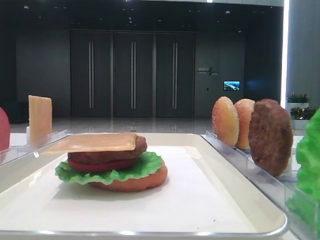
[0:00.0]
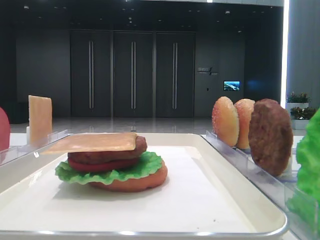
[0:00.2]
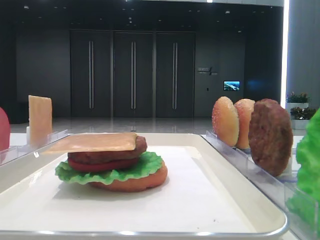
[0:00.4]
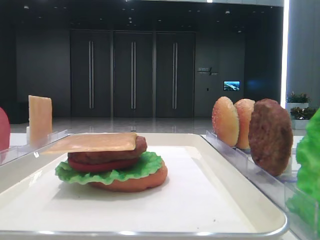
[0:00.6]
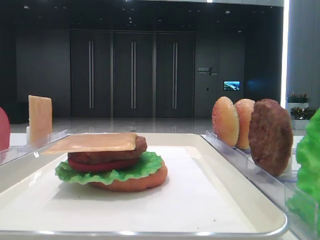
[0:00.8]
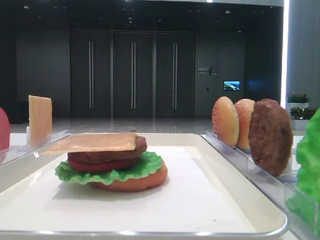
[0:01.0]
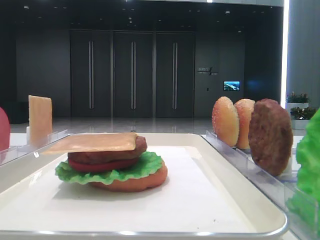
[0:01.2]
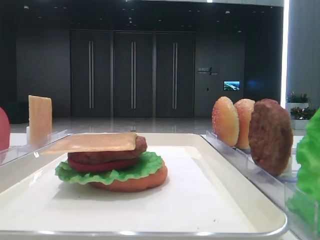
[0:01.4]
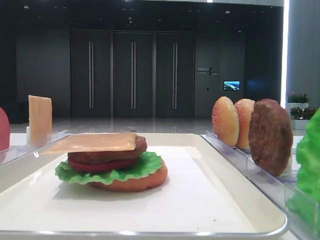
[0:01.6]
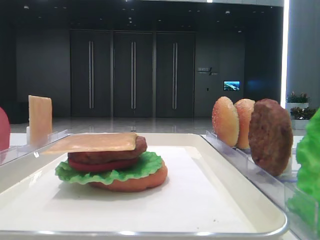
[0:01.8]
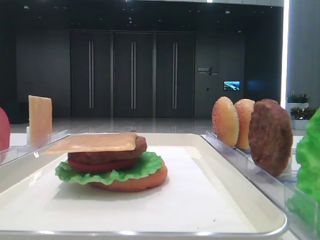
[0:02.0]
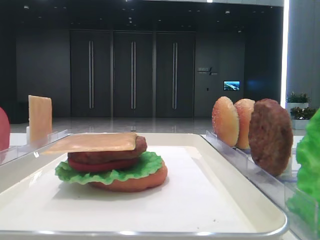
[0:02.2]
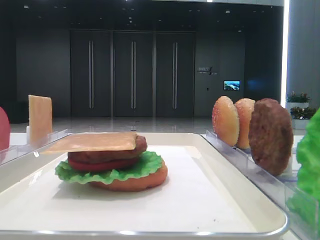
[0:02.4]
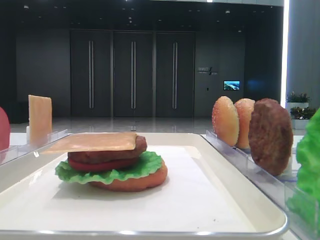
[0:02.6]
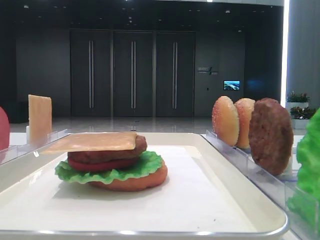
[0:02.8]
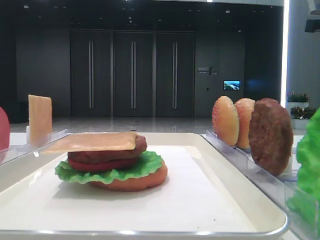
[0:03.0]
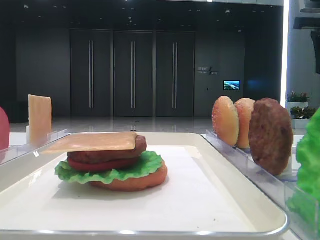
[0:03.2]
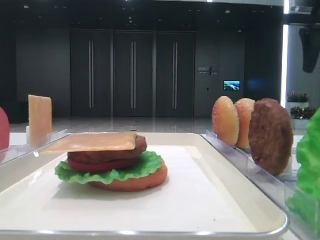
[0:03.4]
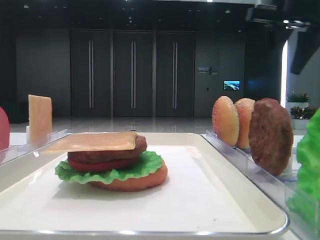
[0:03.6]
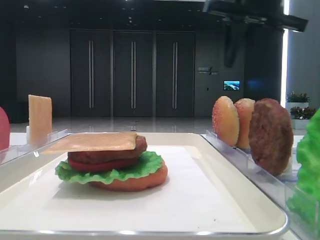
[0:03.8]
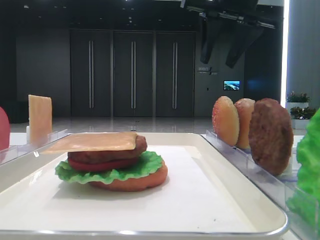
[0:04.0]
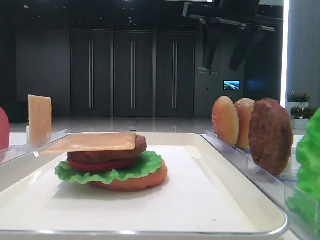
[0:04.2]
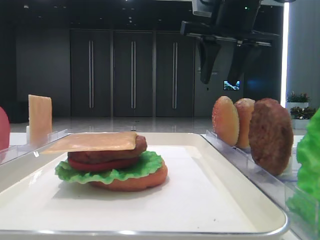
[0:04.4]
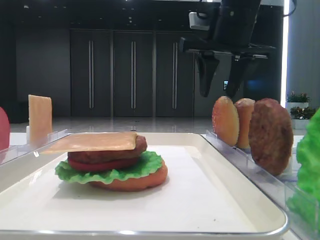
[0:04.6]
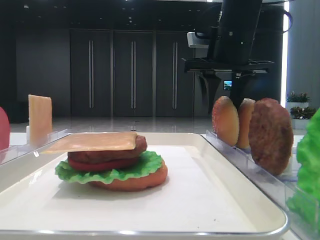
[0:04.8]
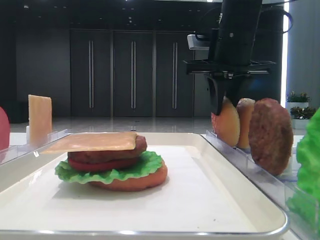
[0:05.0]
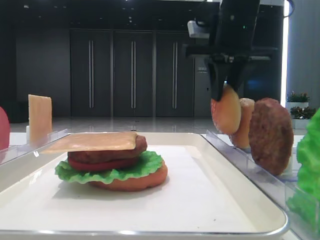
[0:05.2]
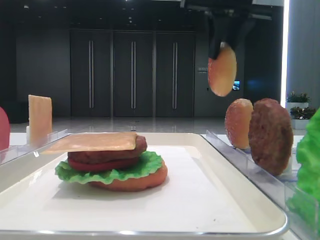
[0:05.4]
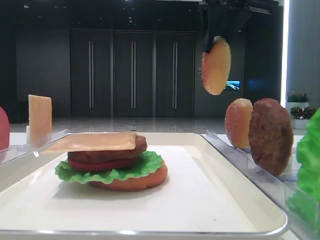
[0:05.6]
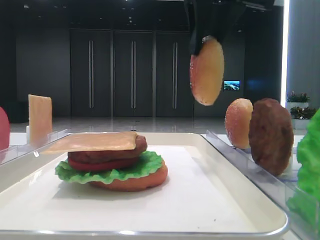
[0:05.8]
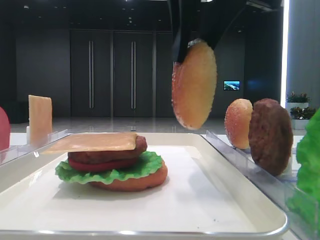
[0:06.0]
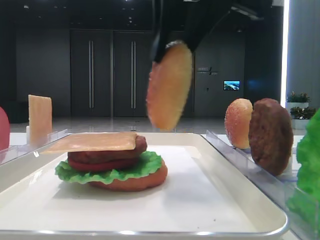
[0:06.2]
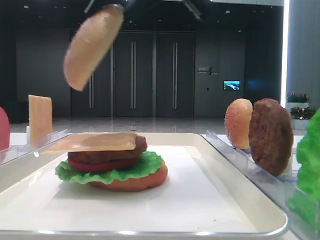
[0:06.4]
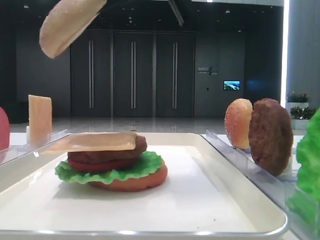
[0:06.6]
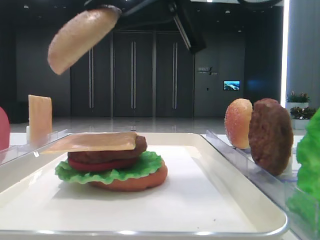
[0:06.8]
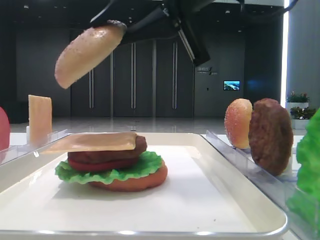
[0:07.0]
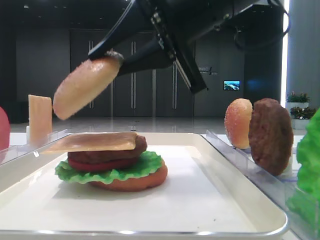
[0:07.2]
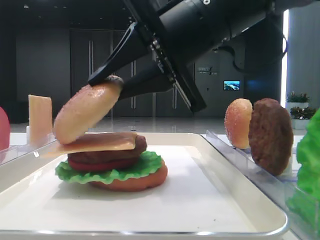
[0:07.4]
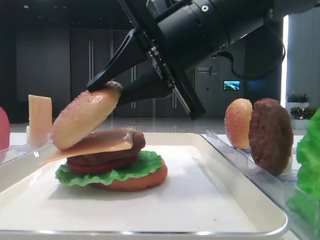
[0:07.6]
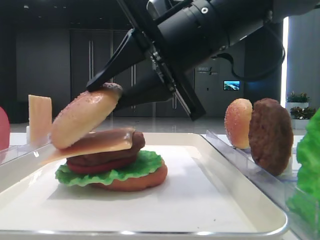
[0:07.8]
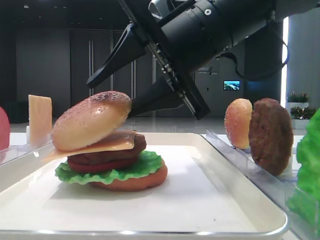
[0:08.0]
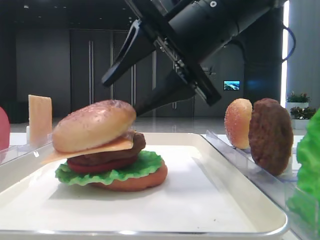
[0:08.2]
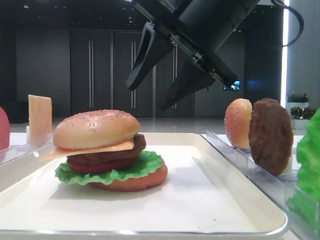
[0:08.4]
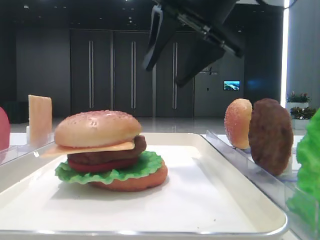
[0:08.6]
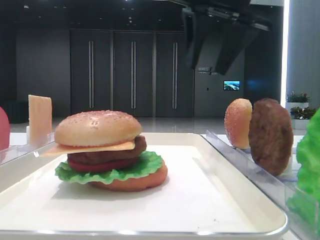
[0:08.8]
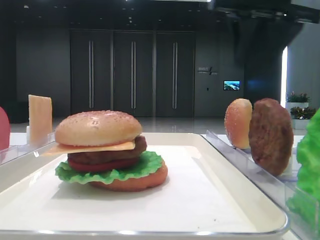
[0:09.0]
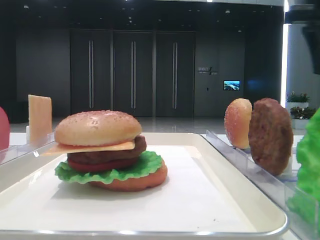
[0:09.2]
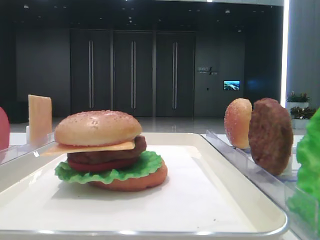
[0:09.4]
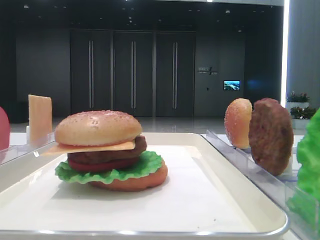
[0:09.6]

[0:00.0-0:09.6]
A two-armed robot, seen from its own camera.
Step, 0:00.0 to 0:05.0: Pick up the top bread slice with the right hand.
Step, 0:05.2 to 0:08.0: Place the top bread slice on the cheese with the right hand.
0:01.6 to 0:03.2: The left gripper closes up; the right gripper goes some 40 cm forward.
0:03.2 to 0:04.8: The right gripper travels to the left by some 20 cm.
0:04.8 to 0:06.4: The right gripper travels backward, to the left and upward by approximately 20 cm, and closes up.
0:06.4 to 0:08.0: The right gripper goes about 10 cm downward, and opens its fingers.
0:08.0 to 0:09.6: The right gripper is displaced to the right and upward by approximately 30 cm.

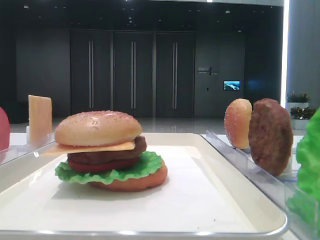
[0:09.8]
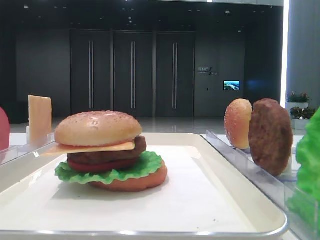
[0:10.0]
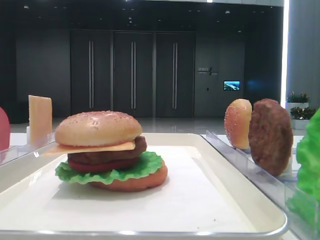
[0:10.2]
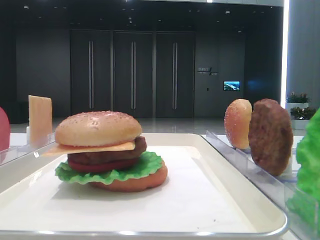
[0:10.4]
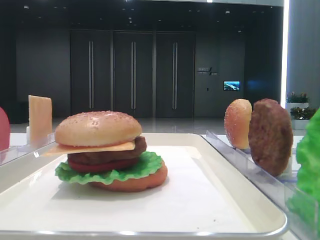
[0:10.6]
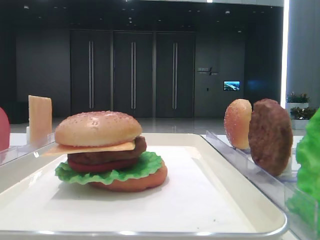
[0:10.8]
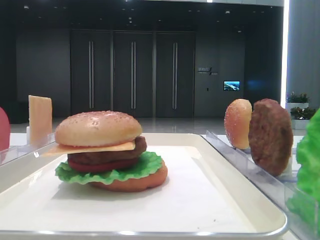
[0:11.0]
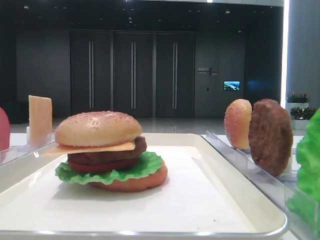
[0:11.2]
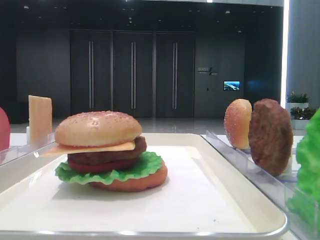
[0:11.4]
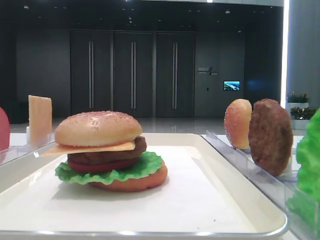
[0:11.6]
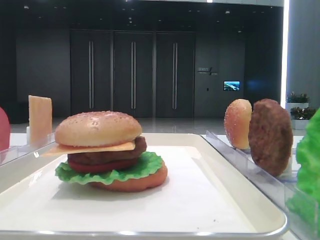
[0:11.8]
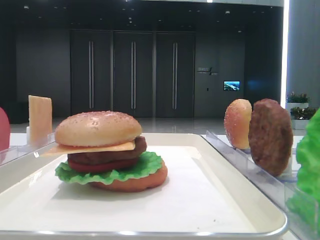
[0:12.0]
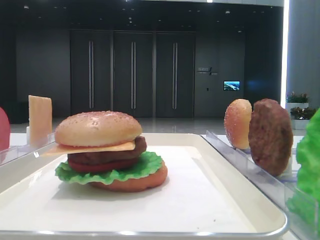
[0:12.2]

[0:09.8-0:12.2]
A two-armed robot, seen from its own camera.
0:11.0 to 0:12.2: Both grippers stay about where they are.

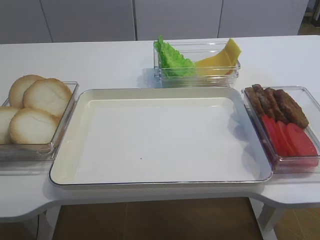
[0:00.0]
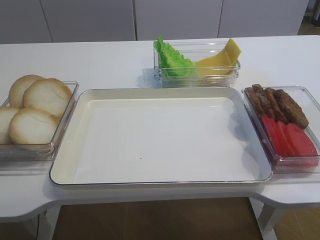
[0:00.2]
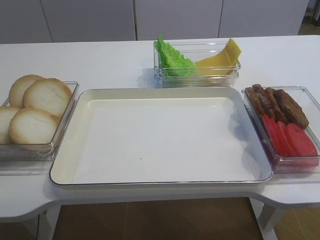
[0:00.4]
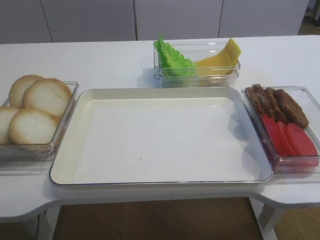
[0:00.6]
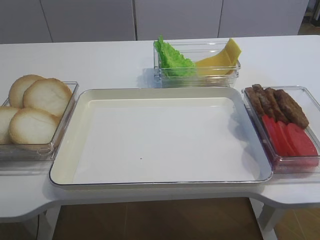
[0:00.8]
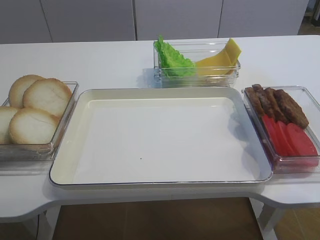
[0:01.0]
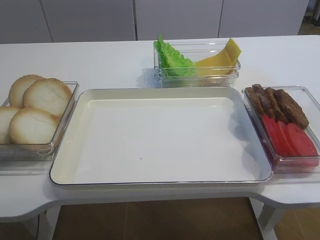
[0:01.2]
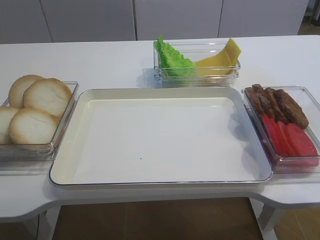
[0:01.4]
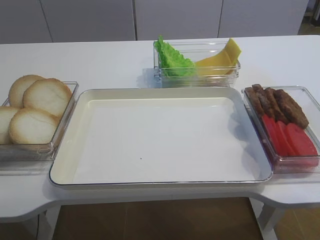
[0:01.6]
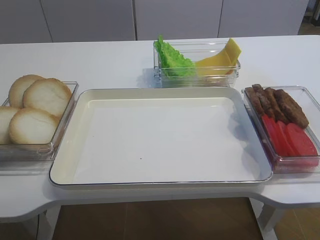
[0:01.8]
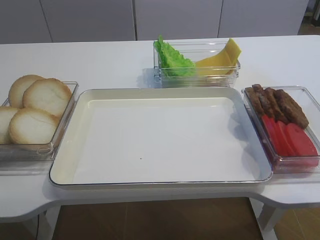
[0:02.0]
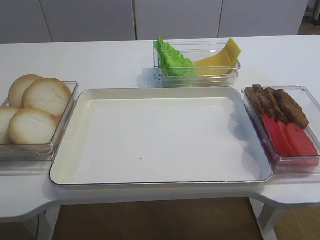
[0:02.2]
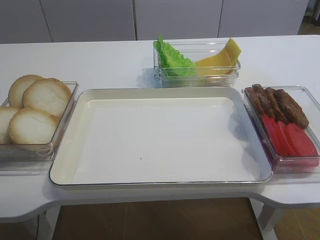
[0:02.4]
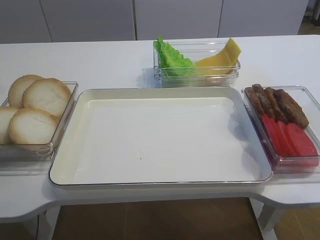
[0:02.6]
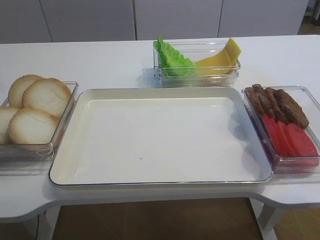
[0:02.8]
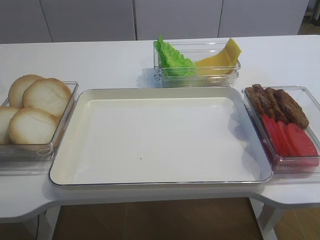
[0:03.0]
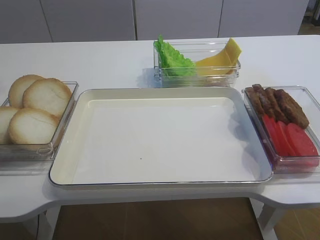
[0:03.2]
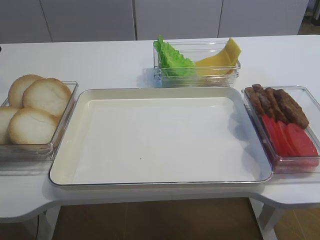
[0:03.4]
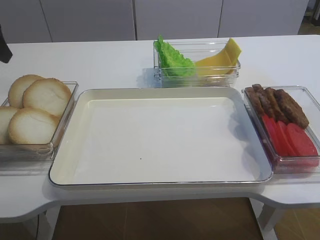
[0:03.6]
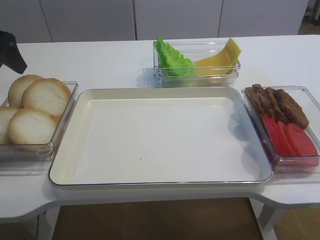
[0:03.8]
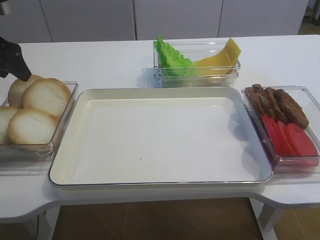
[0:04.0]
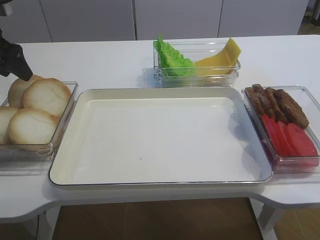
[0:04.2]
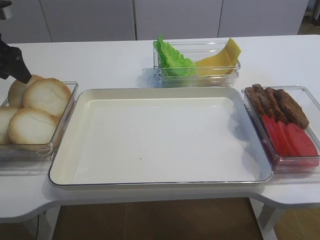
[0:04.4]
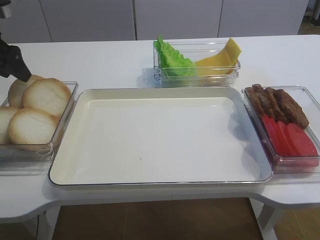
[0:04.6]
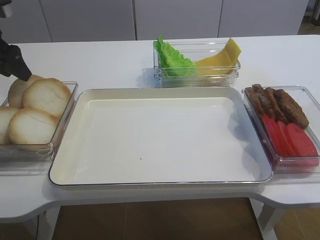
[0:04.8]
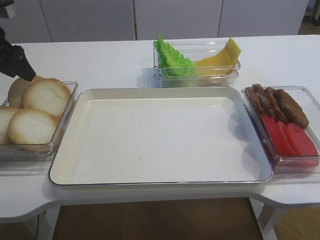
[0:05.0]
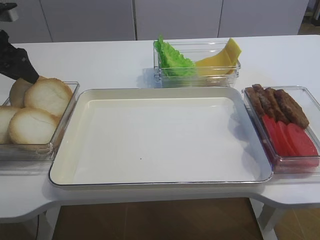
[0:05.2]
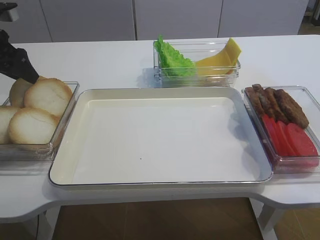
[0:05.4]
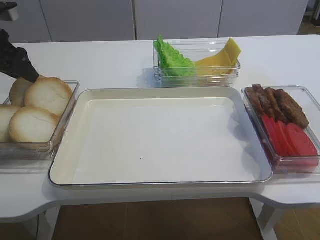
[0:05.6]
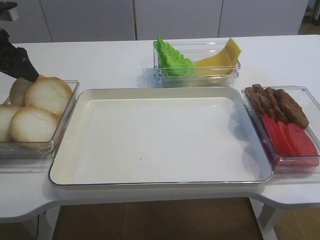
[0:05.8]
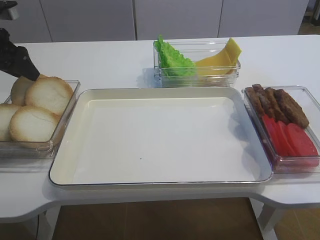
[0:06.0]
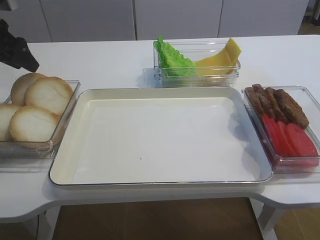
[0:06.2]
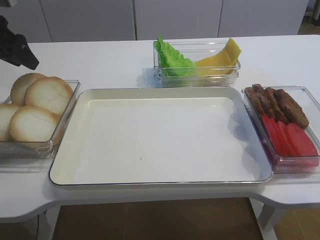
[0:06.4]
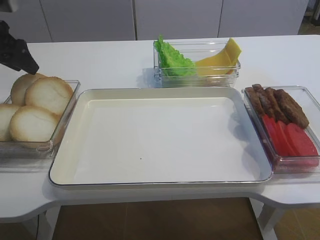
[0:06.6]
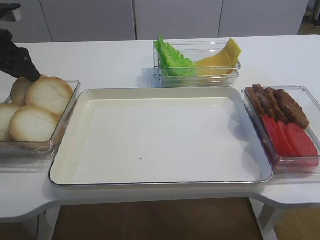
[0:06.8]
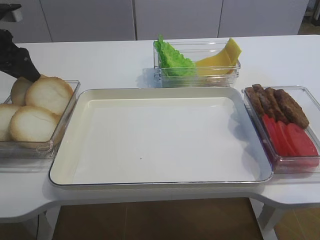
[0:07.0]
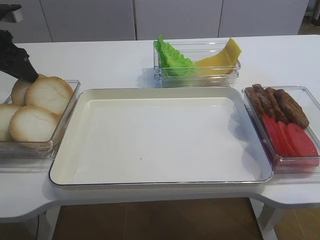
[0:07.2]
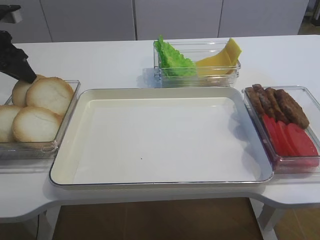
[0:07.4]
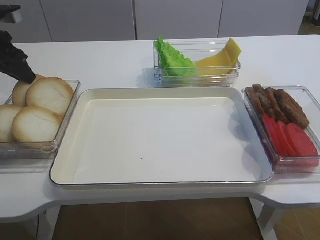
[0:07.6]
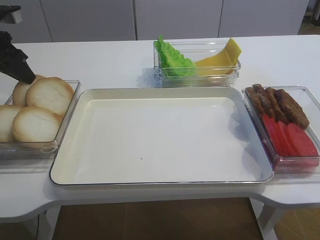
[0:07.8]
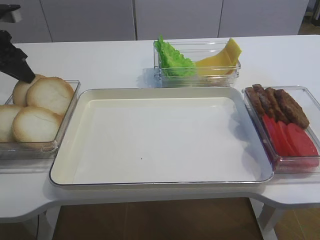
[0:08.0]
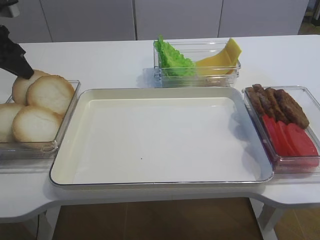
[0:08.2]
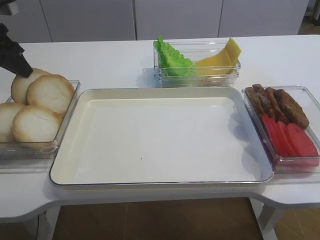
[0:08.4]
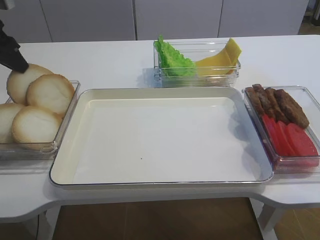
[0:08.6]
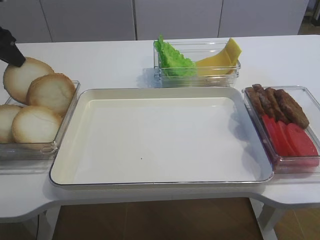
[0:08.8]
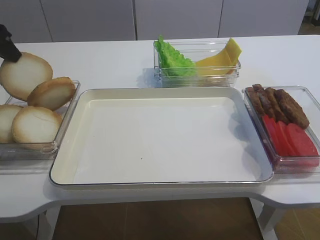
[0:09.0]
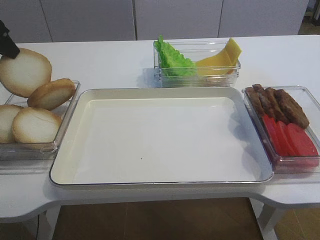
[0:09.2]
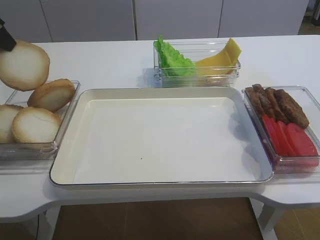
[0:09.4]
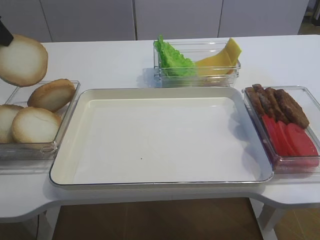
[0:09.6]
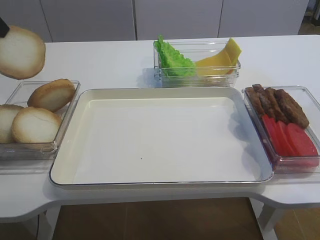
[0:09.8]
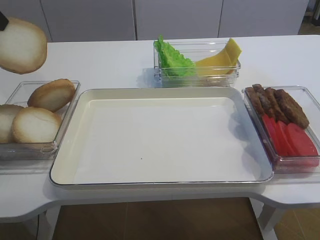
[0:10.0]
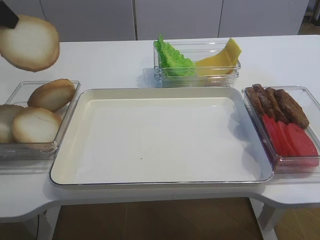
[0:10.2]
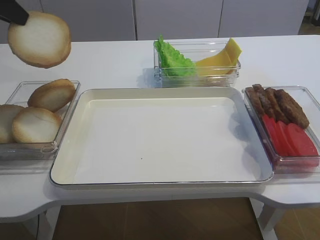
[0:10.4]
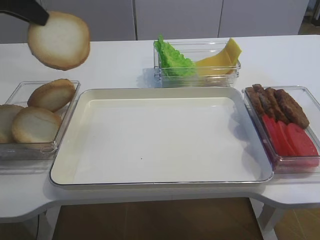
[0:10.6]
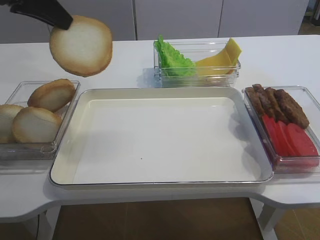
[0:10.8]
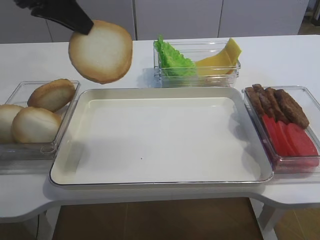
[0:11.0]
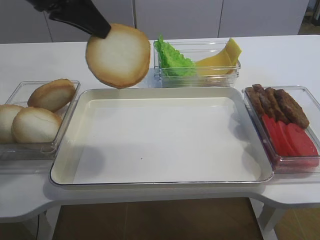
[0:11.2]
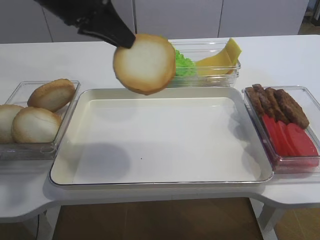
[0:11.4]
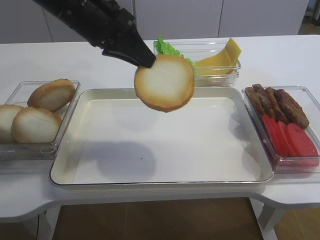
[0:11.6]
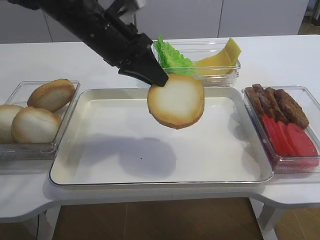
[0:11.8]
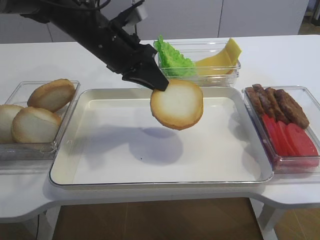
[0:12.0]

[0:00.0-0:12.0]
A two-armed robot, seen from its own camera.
Step, 0:00.0 to 0:09.2: Pick up the bread slice with the left gripper.
0:03.0 to 0:04.4: The left gripper is displaced downward and forward by some 10 cm.
0:04.4 to 0:06.0: The grippers stay close to where they were, moving slightly.
0:06.0 to 0:07.6: The left gripper closes up.
0:07.6 to 0:09.0: The left gripper moves upward, some 5 cm.
0:09.0 to 0:10.4: The left gripper shifts some 5 cm upward.
0:10.4 to 0:12.0: The left gripper travels to the right and downward by roughly 20 cm.
